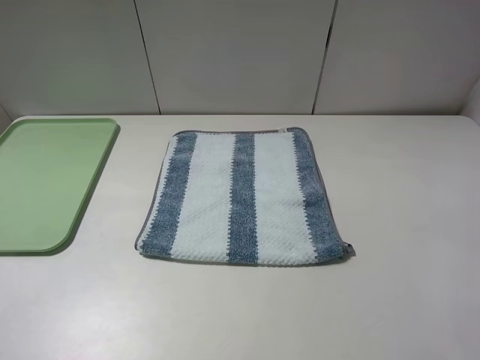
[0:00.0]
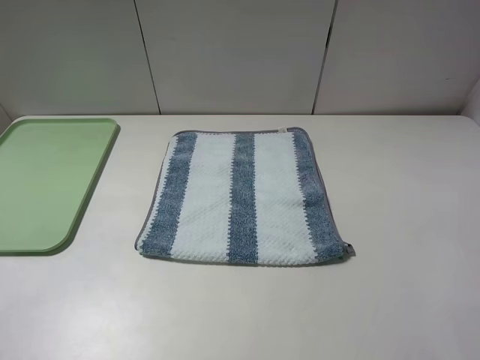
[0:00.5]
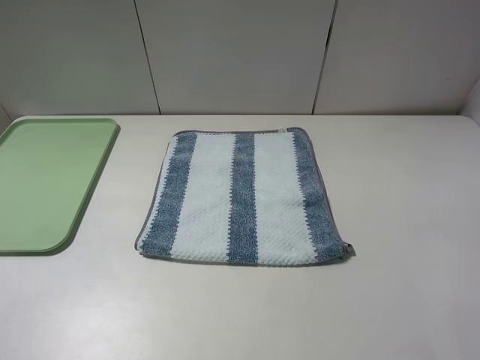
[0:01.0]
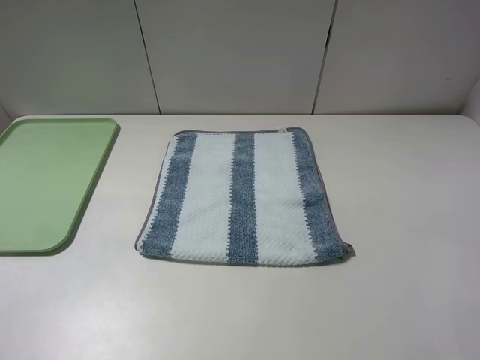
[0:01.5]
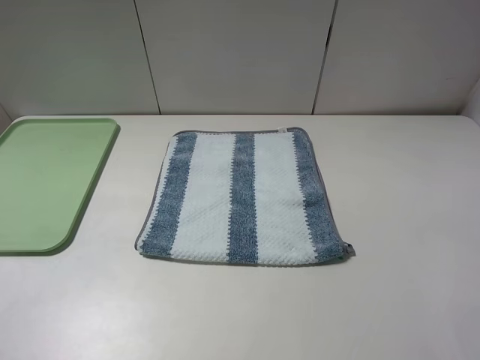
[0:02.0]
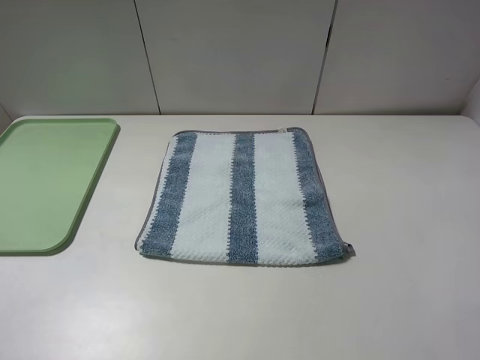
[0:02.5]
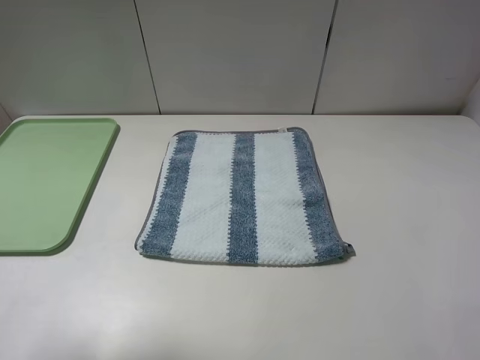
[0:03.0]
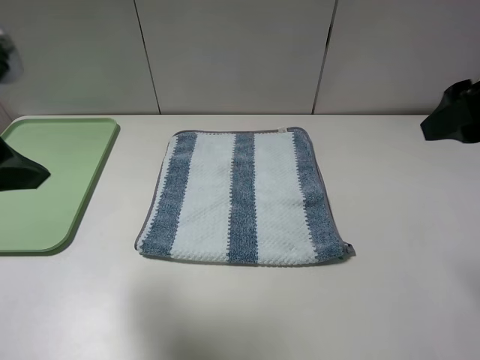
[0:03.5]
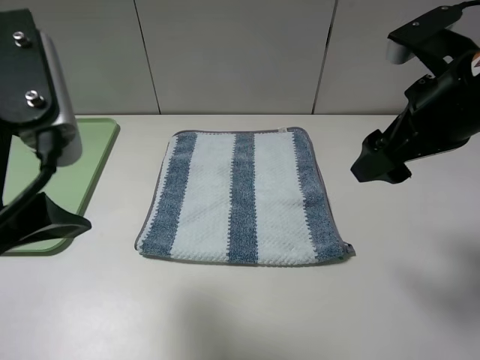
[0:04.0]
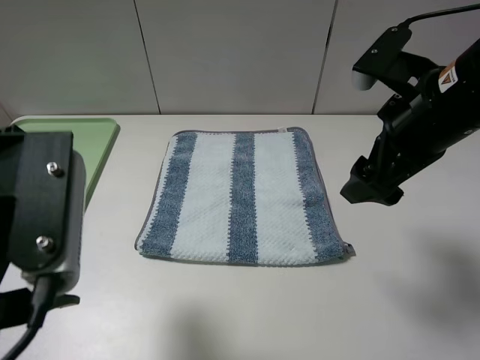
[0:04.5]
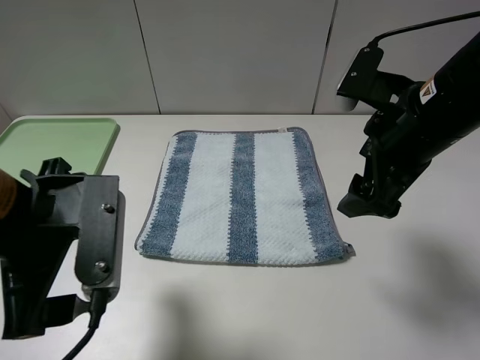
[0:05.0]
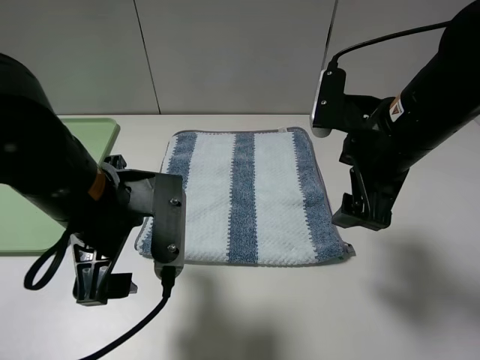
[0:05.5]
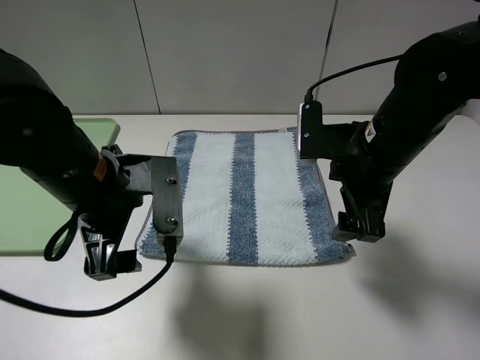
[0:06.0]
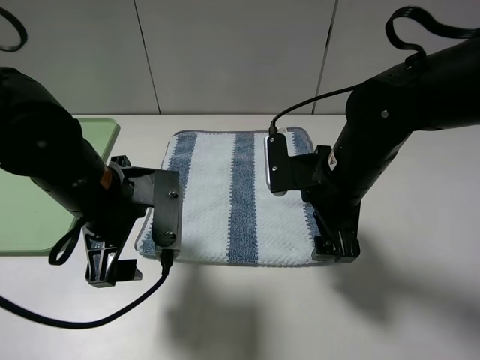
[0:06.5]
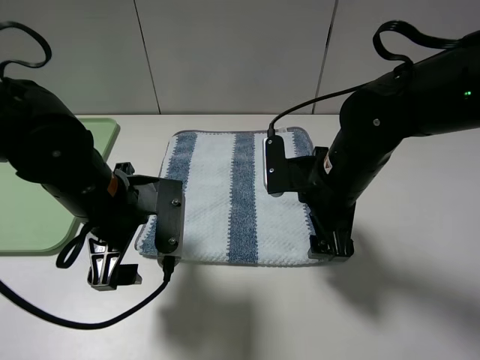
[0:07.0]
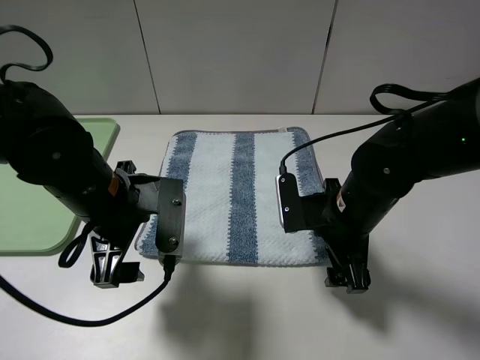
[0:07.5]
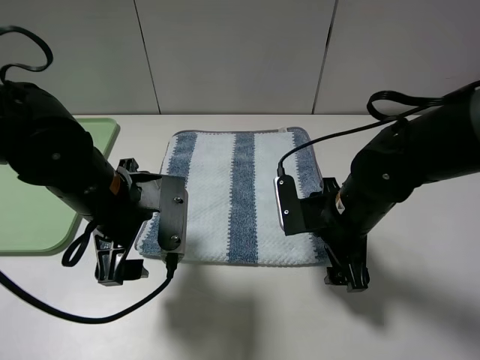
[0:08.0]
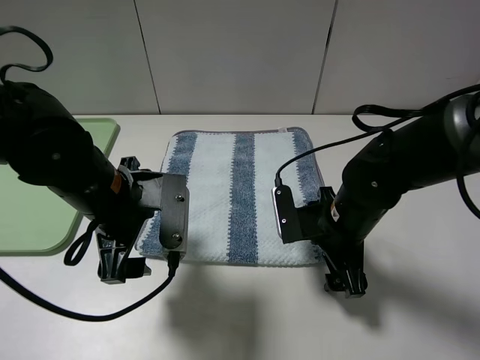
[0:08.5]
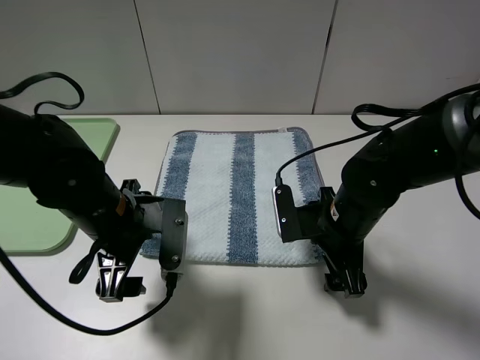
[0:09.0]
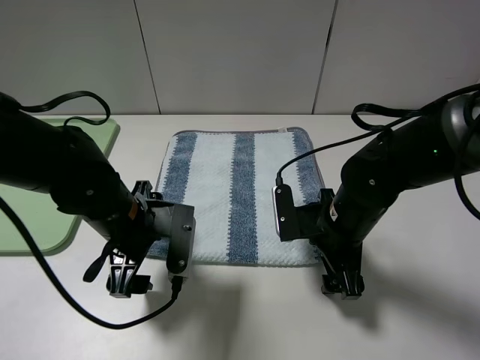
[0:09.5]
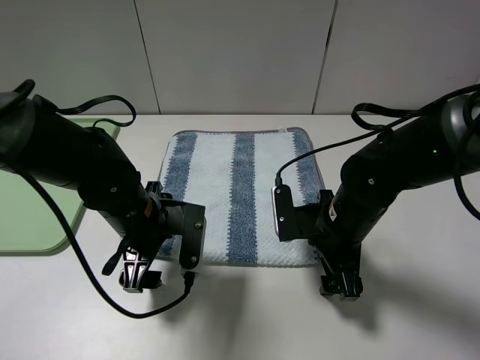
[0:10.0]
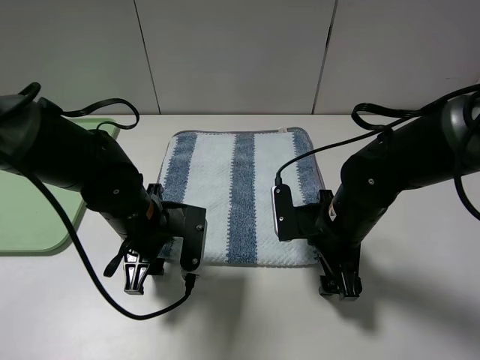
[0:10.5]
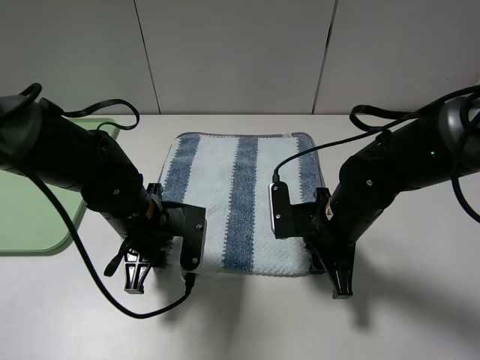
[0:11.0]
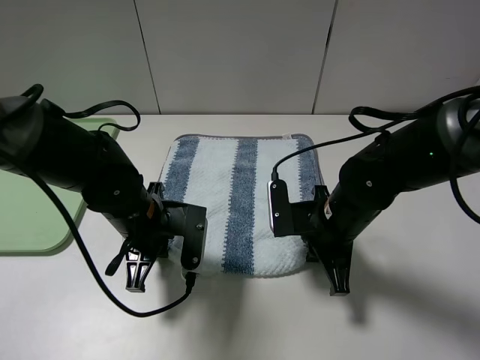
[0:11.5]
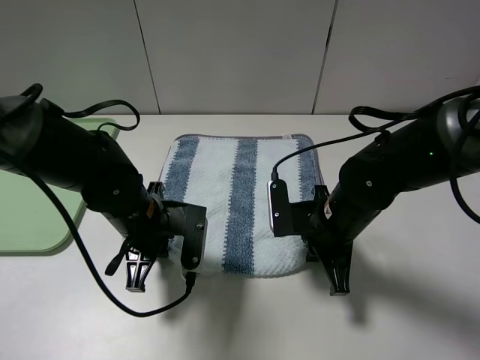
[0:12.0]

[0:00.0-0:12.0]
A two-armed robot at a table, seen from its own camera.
Step, 0.0 to 11.0 s: Grasp the blue white towel with the left gripper.
0.0 to 2.0 s: Both grippers stay put.
2.0 to 4.0 s: The right gripper travels forward and to the left by roughly 20 cm; the left gripper shifts approximately 20 cm forward and to the right.
4.0 to 6.0 s: The left gripper heads downward and forward, covering some 15 cm; the right gripper goes some 10 cm downward.
6.0 to 8.0 s: The right gripper goes roughly 10 cm downward.
8.0 to 10.0 s: The left gripper heads downward, covering roughly 5 cm.
10.0 to 12.0 s: The left gripper closes, while the right gripper closes.

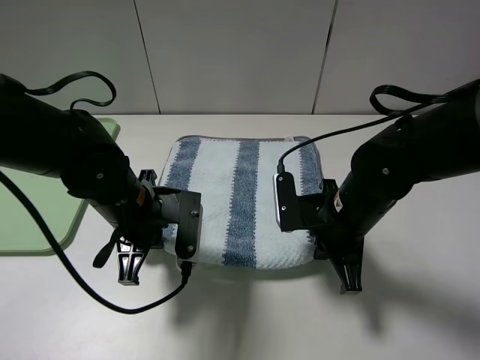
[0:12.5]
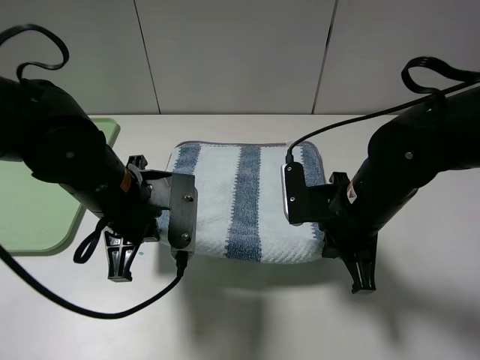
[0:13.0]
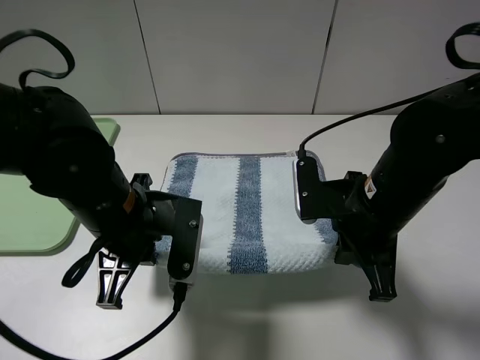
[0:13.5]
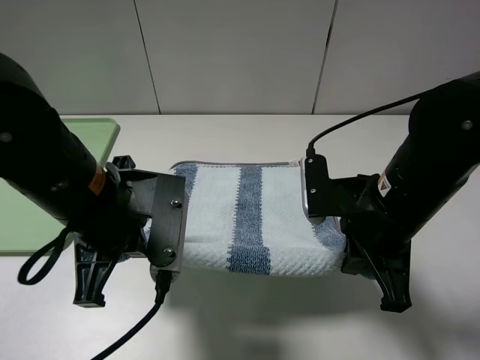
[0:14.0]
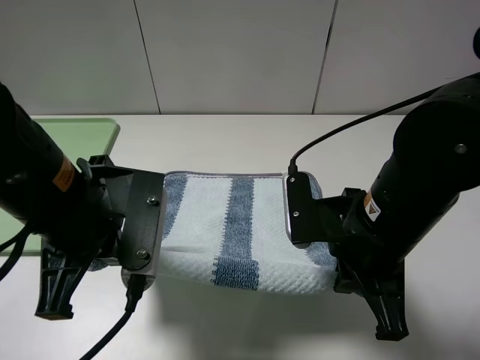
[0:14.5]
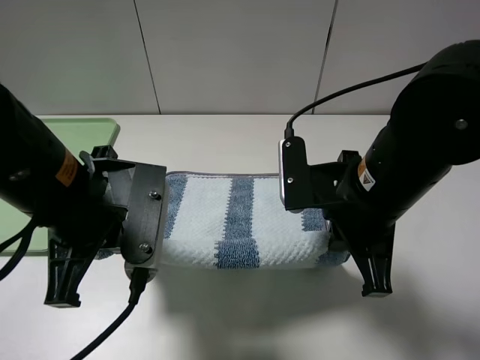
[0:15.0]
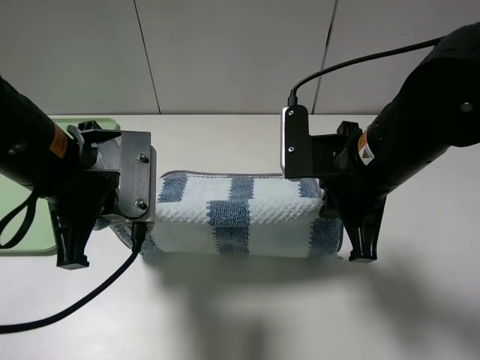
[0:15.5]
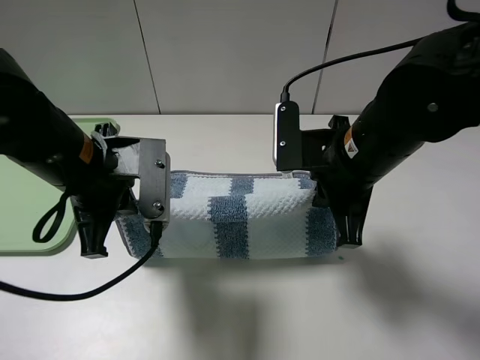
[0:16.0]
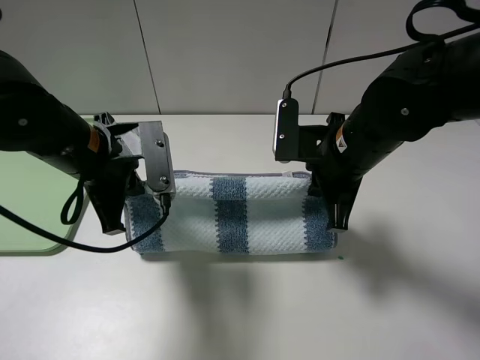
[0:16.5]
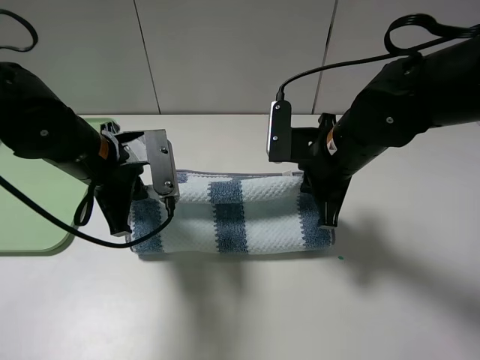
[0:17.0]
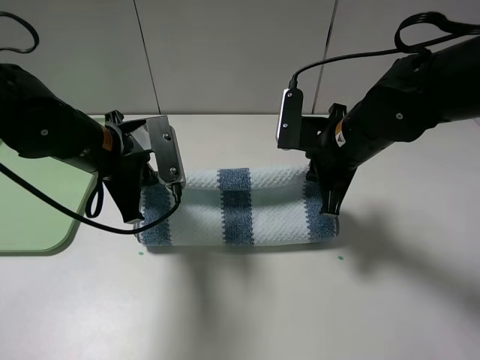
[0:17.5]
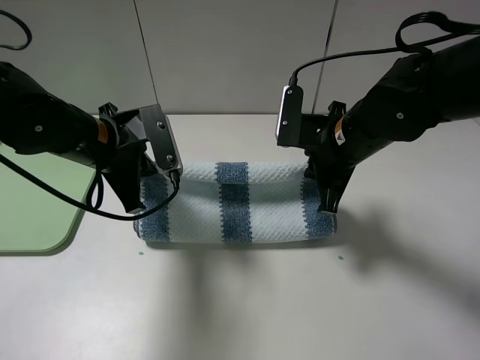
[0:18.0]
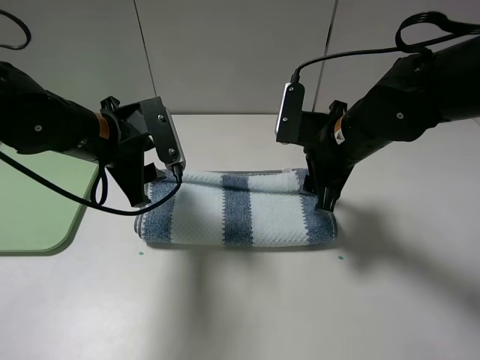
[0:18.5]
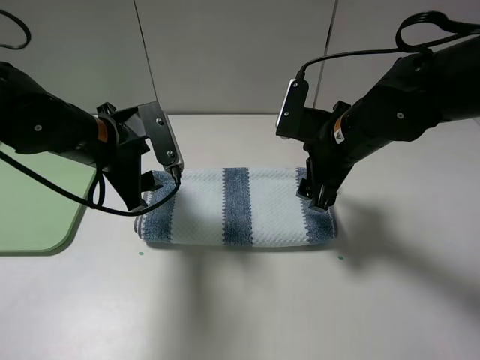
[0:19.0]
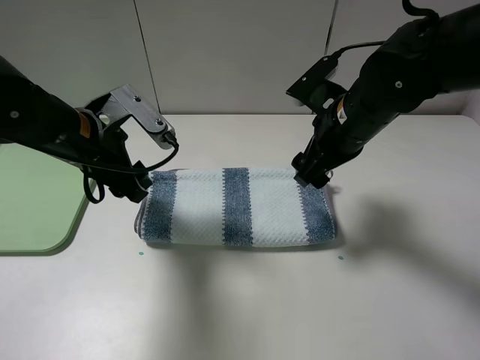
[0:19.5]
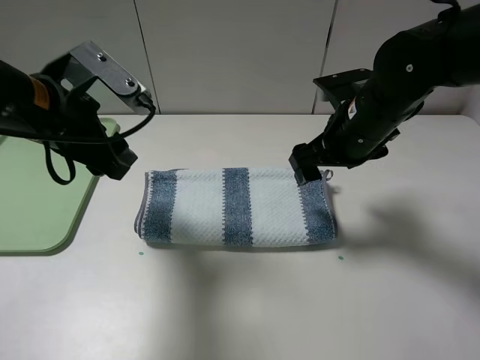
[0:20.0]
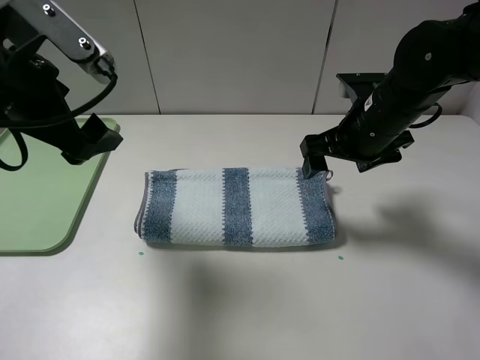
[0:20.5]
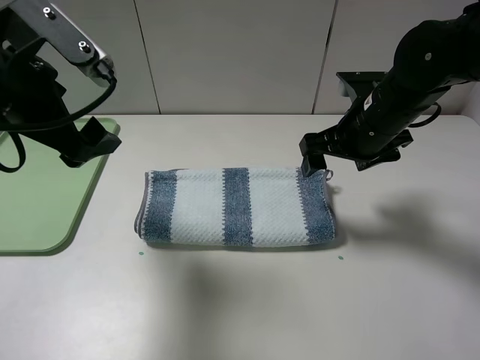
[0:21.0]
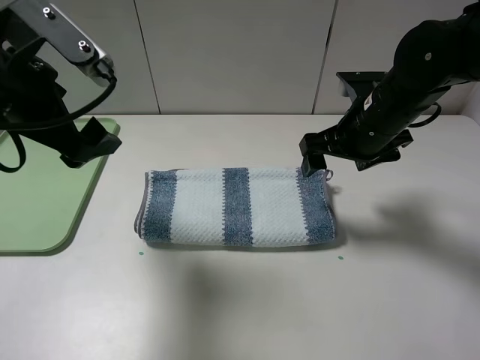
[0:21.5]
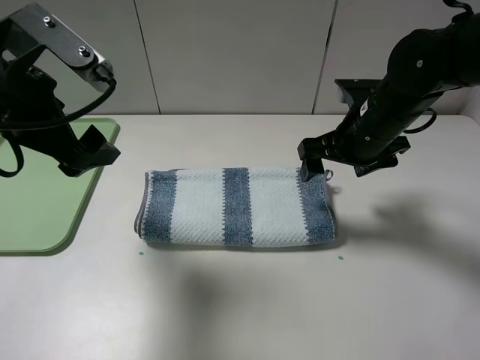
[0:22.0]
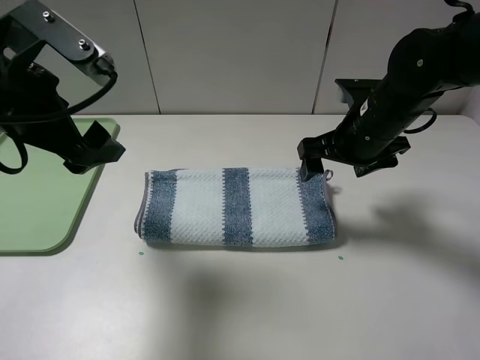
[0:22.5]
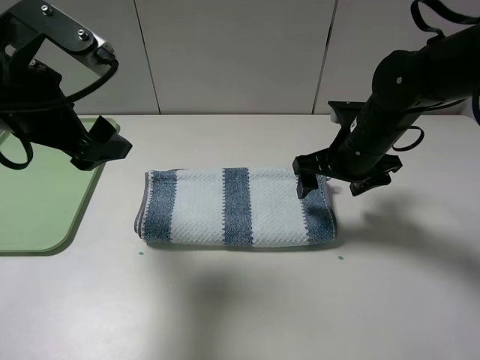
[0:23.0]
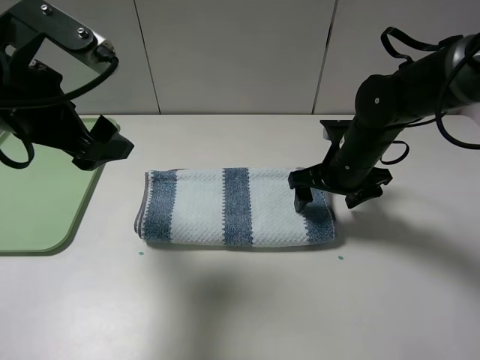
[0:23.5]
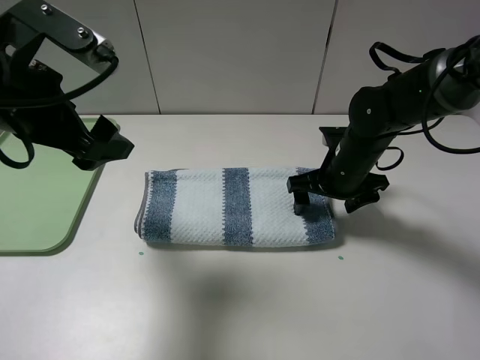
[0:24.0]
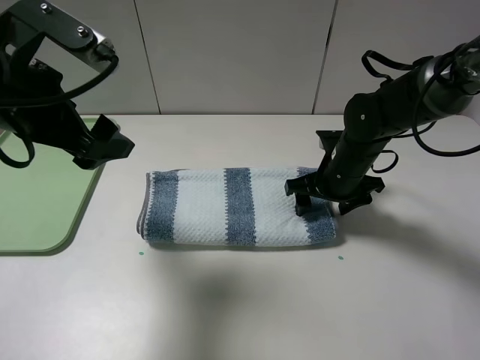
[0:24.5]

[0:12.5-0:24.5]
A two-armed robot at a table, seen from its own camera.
Step, 12.5 to 18.5 s: Fold the blue white towel upwards with the left gripper.
12.5 to 14.5 s: The grippers both shift upward and backward by about 10 cm.
14.5 to 16.5 s: Both grippers move forward, some 10 cm.
16.5 to 18.5 s: The left gripper opens. The right gripper opens.
18.5 to 20.5 s: The left gripper moves upward and backward, some 10 cm, and opens up.
20.5 to 22.5 s: There are only small adjustments of the grippers.
22.5 to 24.5 s: The right gripper is displaced downward by roughly 10 cm.

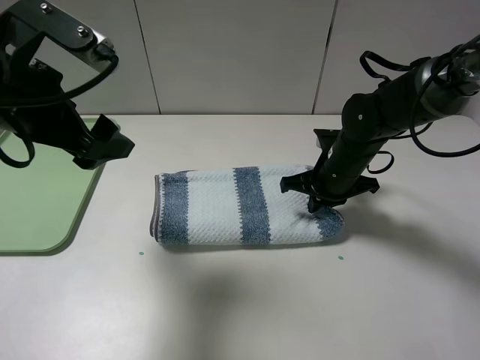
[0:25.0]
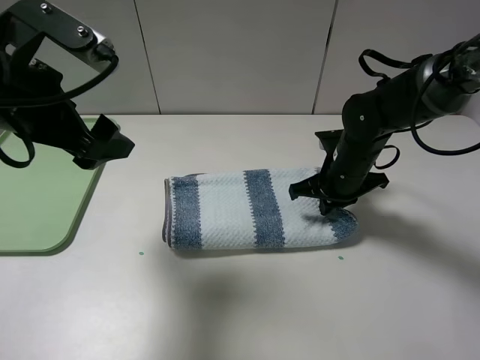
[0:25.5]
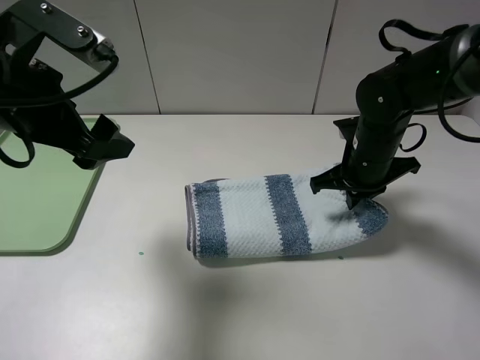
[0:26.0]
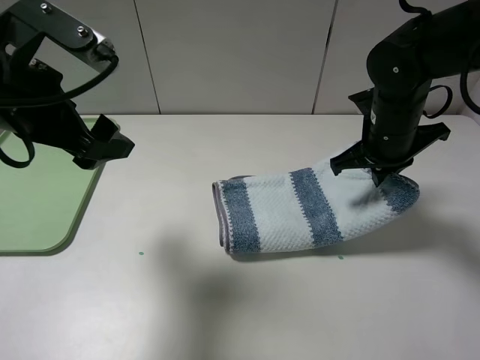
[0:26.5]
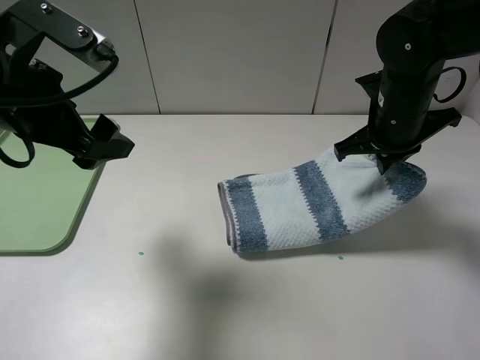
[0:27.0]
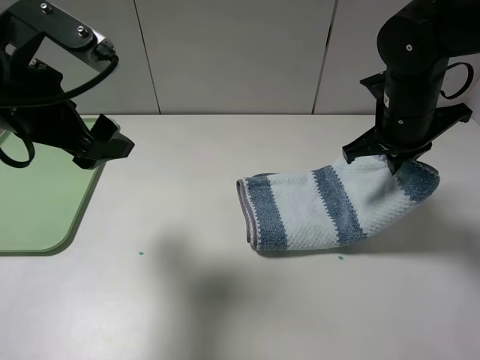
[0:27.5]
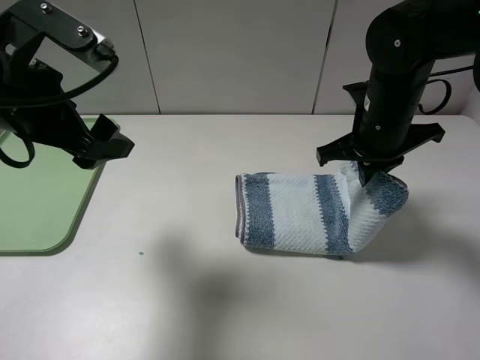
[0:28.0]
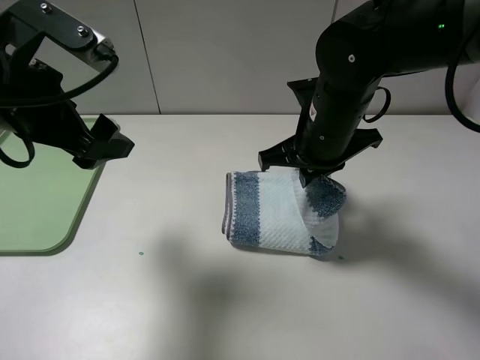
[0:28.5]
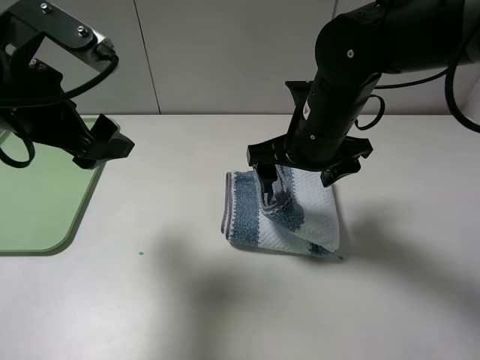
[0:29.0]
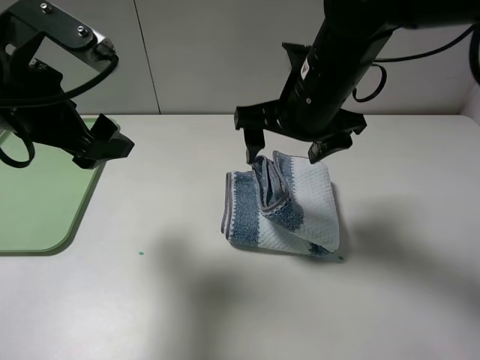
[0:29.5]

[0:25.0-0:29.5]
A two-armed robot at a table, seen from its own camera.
25.0 to 27.0 s: The right gripper shifts approximately 10 cm upward.
27.0 to 29.5 s: The right gripper travels to the left by about 10 cm, and opens.
